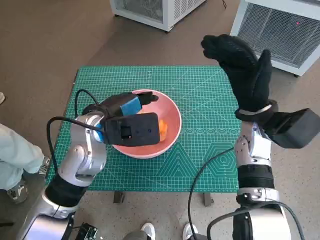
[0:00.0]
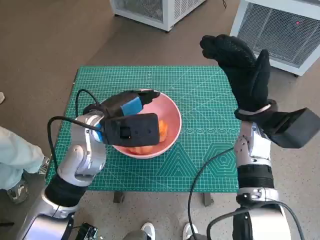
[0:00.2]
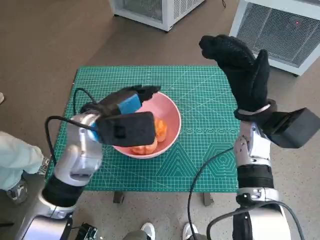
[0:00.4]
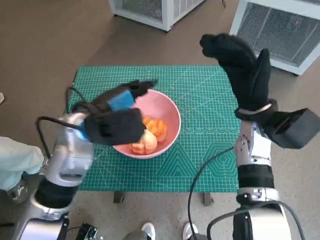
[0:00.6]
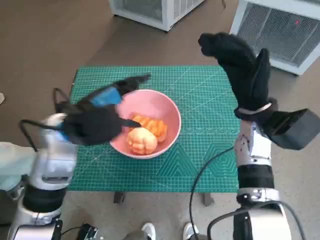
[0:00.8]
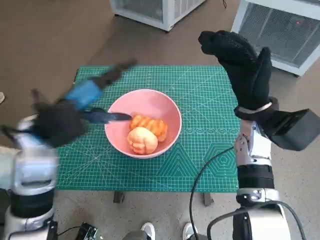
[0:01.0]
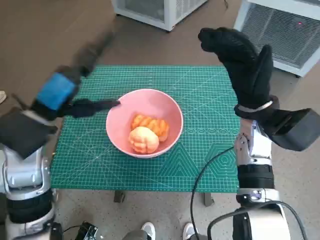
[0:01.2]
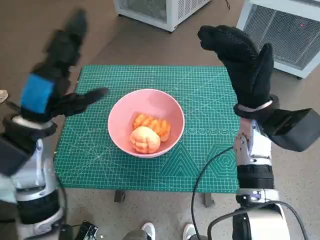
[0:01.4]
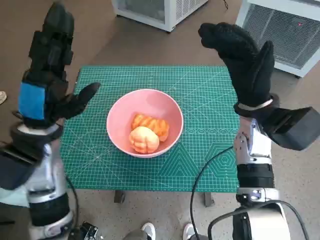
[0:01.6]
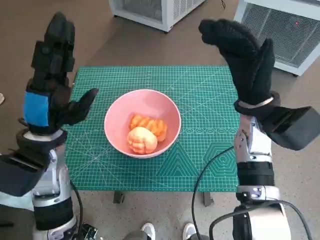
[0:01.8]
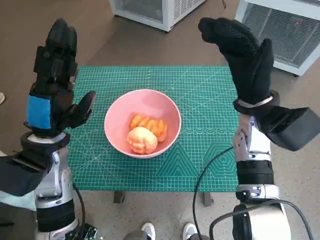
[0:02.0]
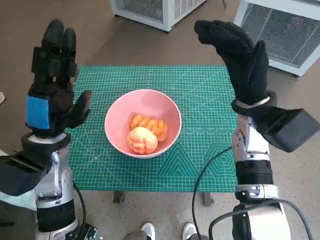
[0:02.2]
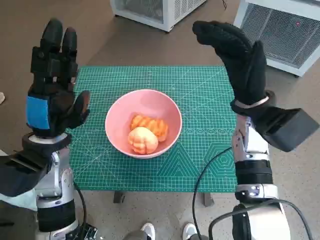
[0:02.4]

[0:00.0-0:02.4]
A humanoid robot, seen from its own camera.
Task of the whole recording: Push the bowl into the center of the table and put the bread into the bowl.
0:00.0 to 0:01.2: The left hand heads to the left, covering about 10 cm.

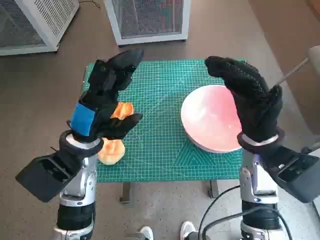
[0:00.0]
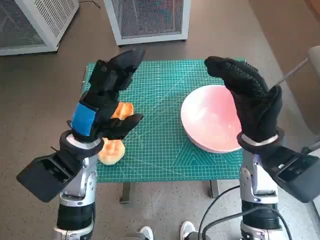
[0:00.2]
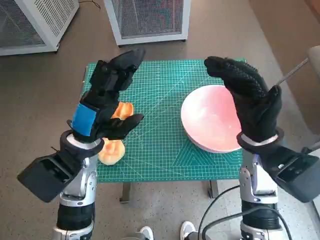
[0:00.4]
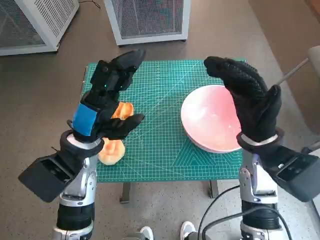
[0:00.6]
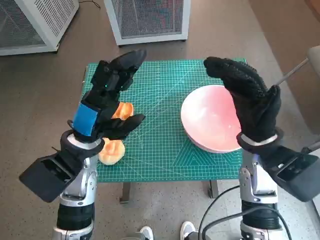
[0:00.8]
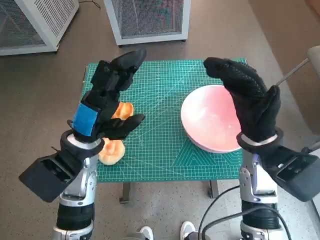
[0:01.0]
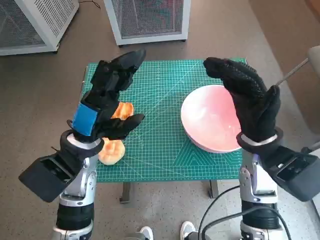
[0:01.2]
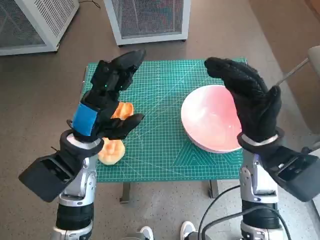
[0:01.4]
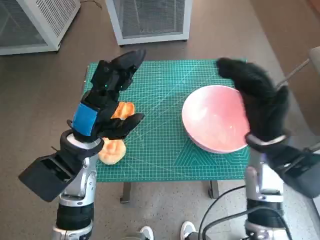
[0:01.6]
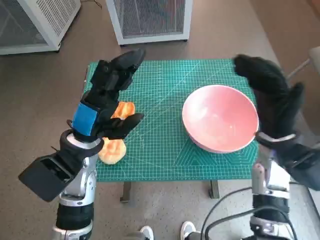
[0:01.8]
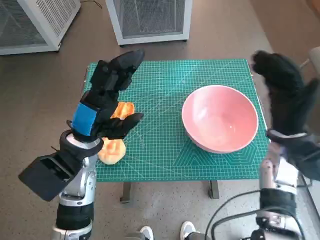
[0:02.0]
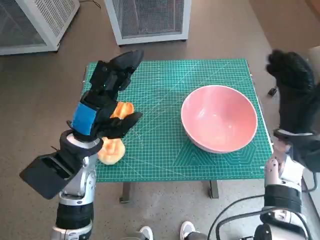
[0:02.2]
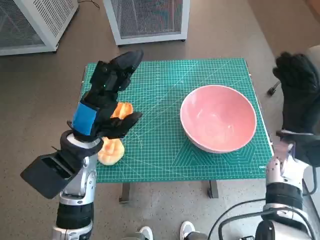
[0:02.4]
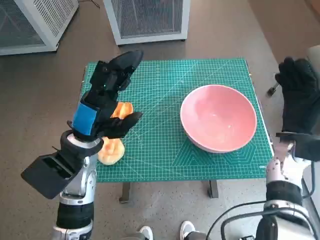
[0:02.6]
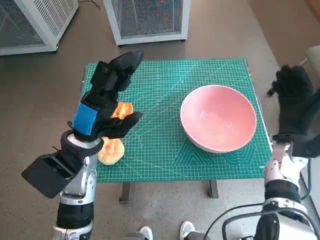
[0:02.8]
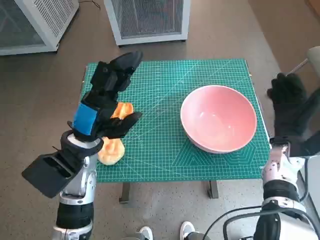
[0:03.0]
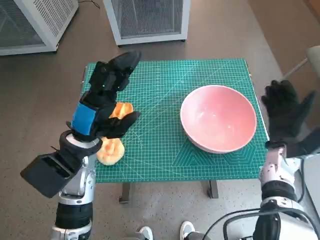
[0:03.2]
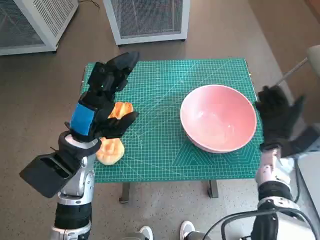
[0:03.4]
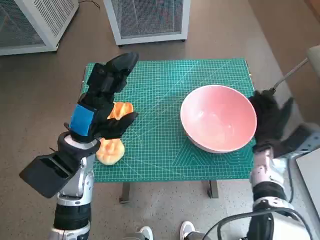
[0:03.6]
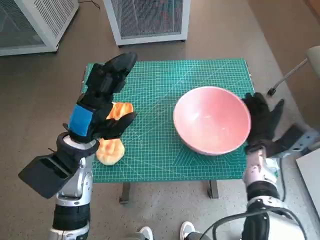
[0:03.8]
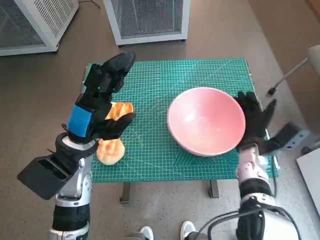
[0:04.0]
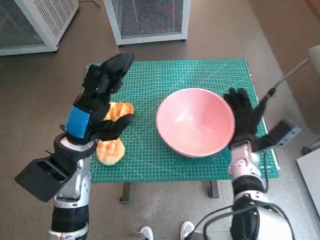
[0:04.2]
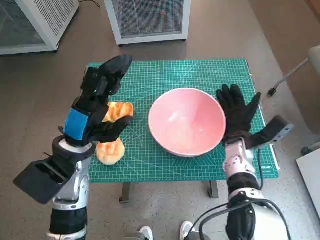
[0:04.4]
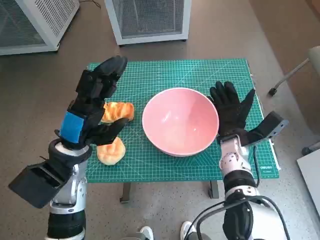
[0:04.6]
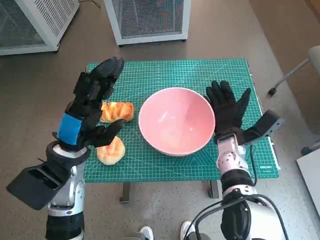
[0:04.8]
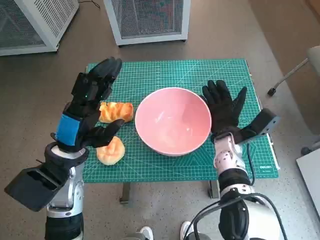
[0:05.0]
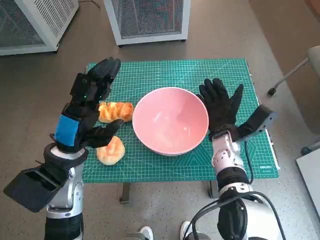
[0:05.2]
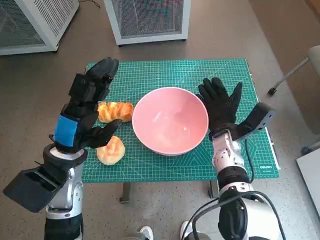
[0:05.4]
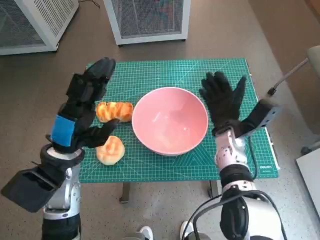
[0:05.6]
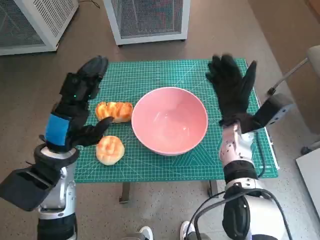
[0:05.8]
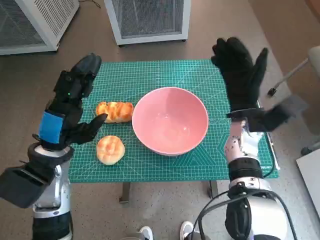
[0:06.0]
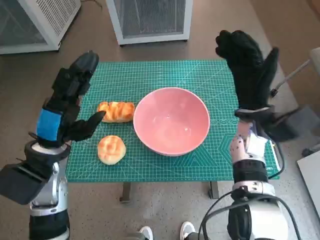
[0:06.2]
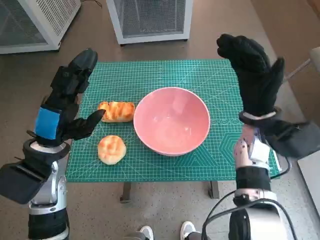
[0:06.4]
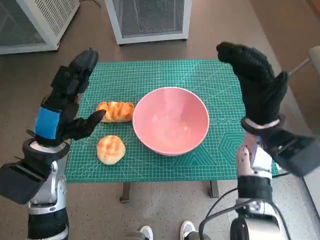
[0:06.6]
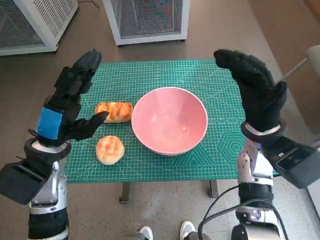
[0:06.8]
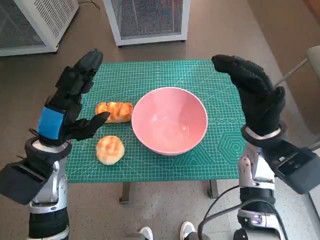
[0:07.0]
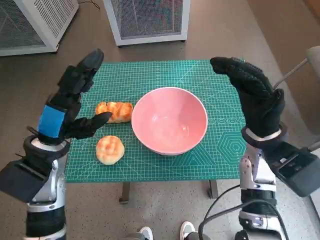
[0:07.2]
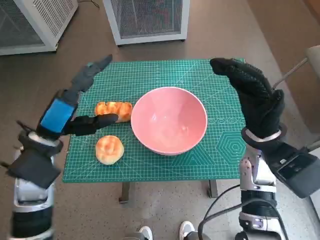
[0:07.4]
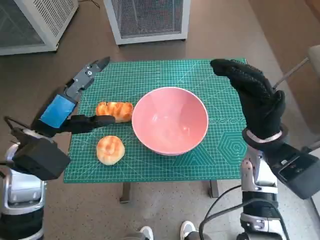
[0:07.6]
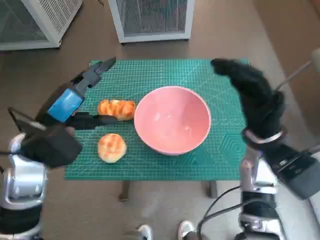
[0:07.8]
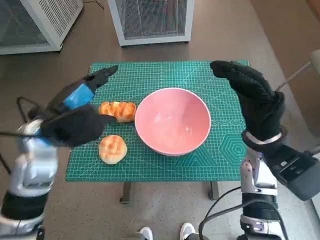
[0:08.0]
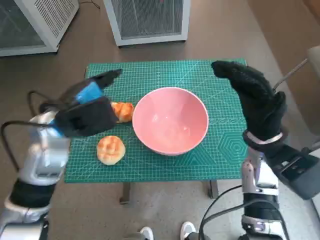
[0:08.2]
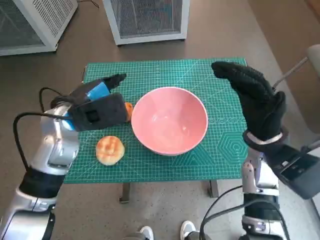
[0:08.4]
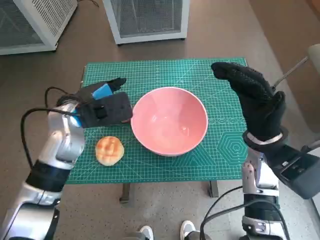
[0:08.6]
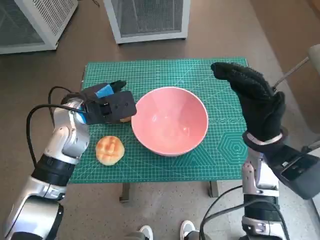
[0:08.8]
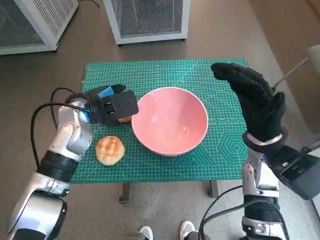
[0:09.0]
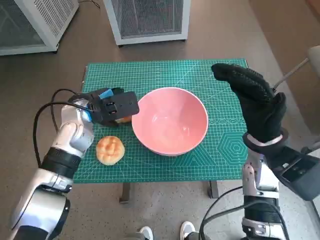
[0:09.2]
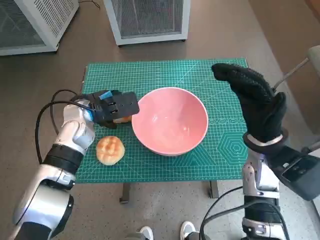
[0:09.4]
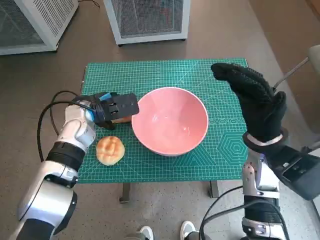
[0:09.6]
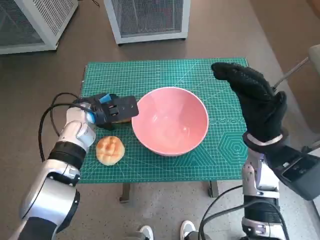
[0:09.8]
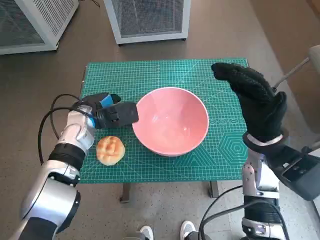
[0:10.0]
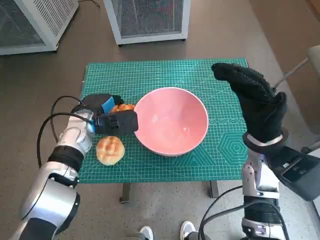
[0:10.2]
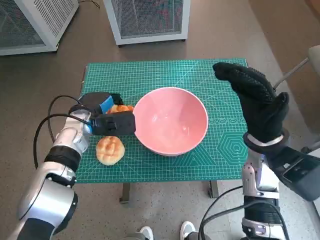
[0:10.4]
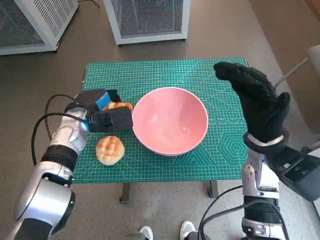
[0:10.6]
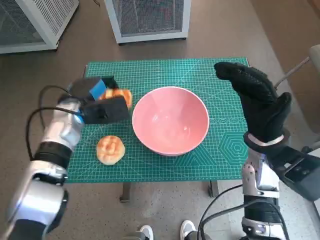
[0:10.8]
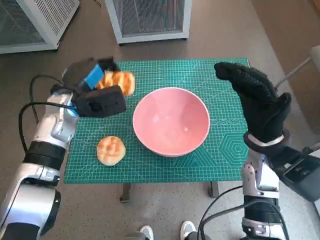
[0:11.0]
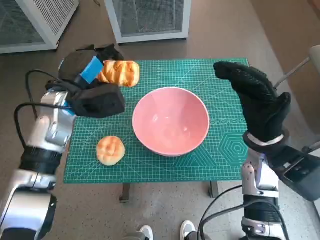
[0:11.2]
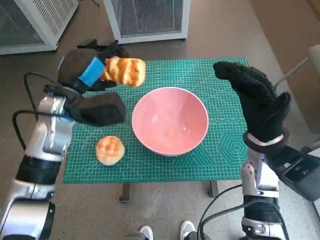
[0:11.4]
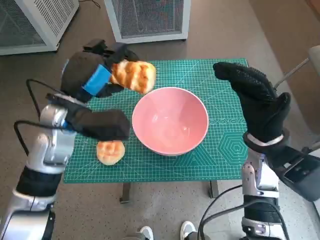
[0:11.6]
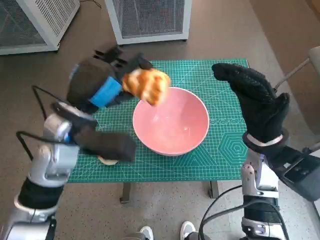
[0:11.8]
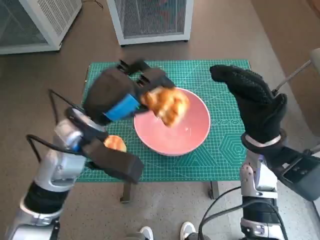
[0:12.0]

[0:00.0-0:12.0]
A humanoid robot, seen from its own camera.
Task of the whole recording: Push the bowl into the center of the table and put the bread into the bowl.
Step, 0:00.0 to 0:05.6: Move the pink bowl to the center of table with right hand.
Step, 0:05.8 to 0:10.2: Grasp the long bread with left hand.
0:01.6 to 0:03.0: The right hand moves to the right and downward, some 10 cm.
0:03.0 to 0:04.4: The right hand is displaced to the left by approximately 10 cm.
0:04.4 to 0:06.0: The right hand is displaced upward by about 5 cm.
0:06.0 to 0:07.6: The right hand travels backward by roughly 5 cm.
0:07.6 to 0:09.0: The left hand is displaced forward by about 10 cm.
0:09.0 to 0:10.4: The left hand travels downward by about 5 cm.
0:10.4 to 0:12.0: The left hand heads upward, backward and to the right, covering roughly 15 cm.

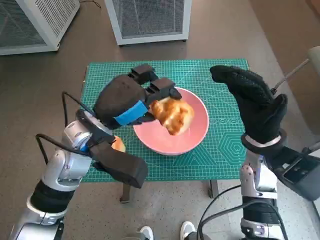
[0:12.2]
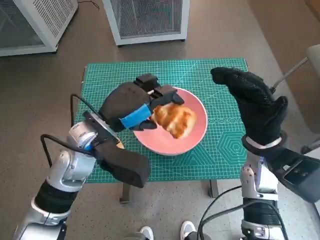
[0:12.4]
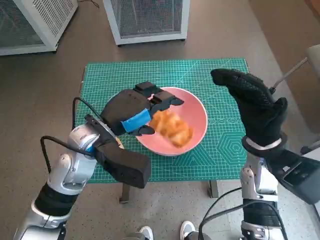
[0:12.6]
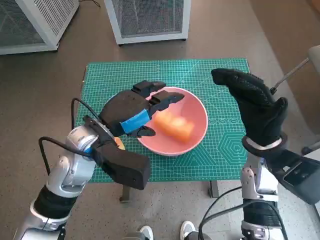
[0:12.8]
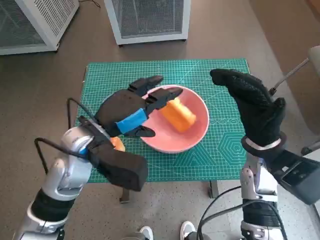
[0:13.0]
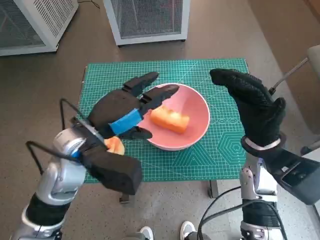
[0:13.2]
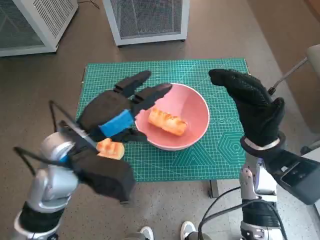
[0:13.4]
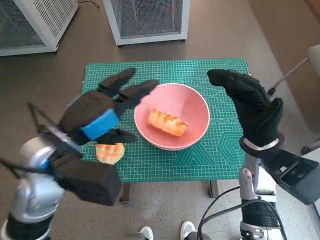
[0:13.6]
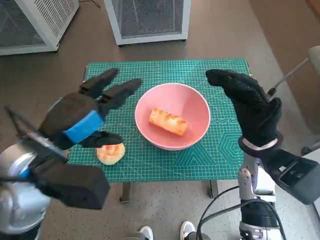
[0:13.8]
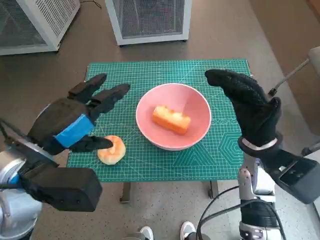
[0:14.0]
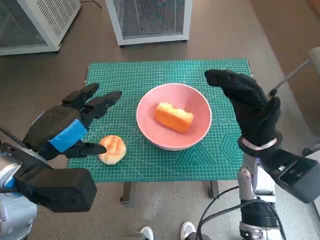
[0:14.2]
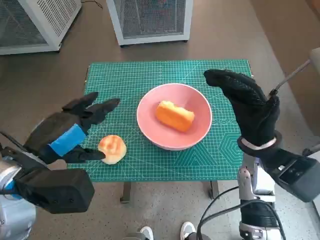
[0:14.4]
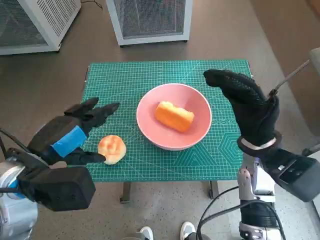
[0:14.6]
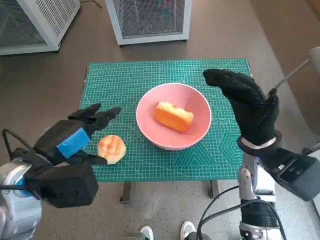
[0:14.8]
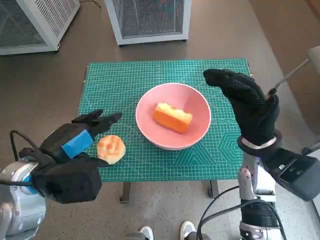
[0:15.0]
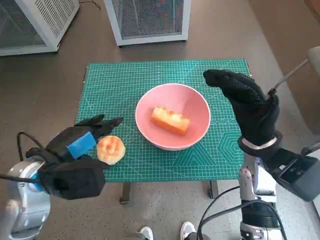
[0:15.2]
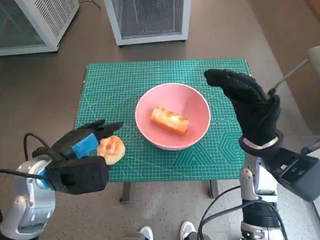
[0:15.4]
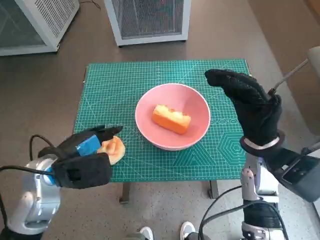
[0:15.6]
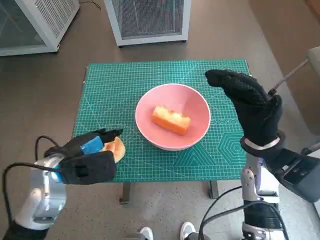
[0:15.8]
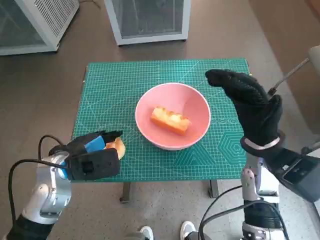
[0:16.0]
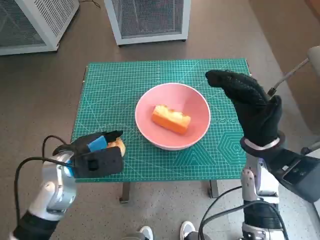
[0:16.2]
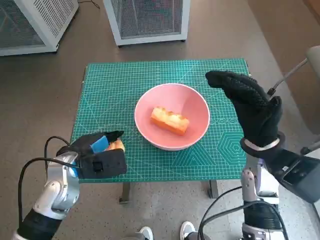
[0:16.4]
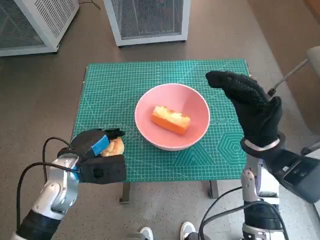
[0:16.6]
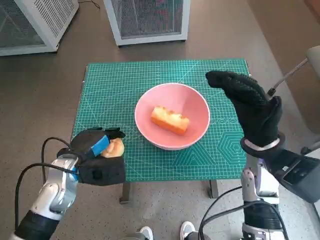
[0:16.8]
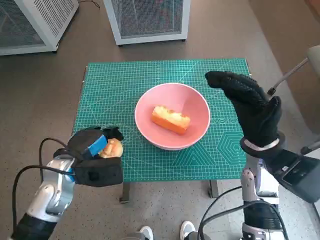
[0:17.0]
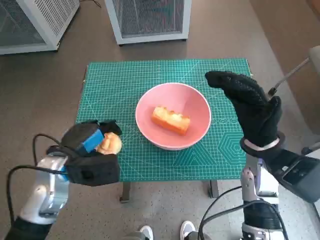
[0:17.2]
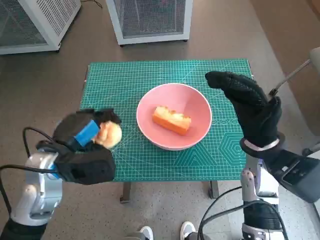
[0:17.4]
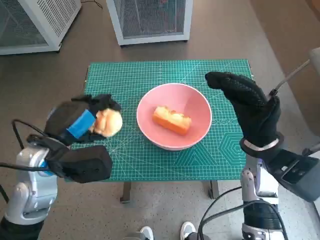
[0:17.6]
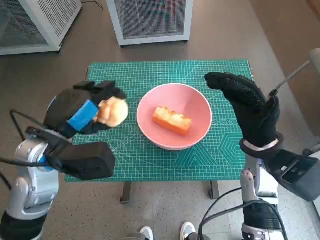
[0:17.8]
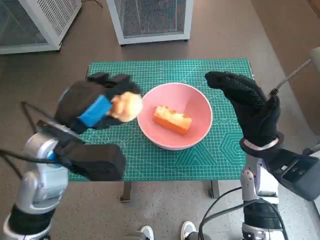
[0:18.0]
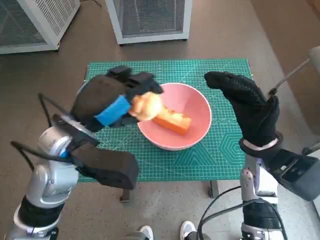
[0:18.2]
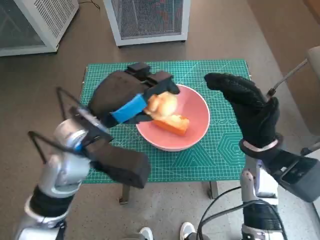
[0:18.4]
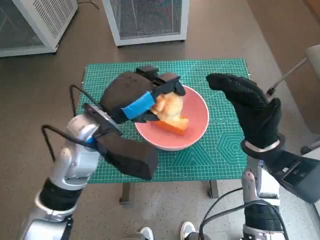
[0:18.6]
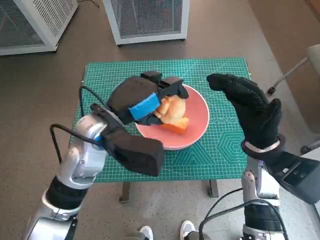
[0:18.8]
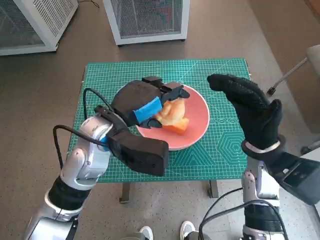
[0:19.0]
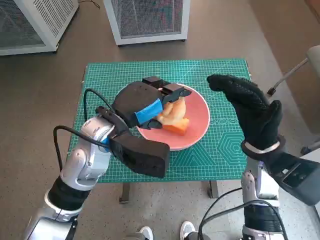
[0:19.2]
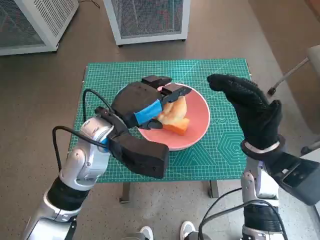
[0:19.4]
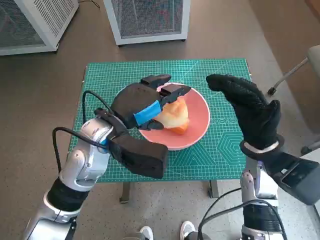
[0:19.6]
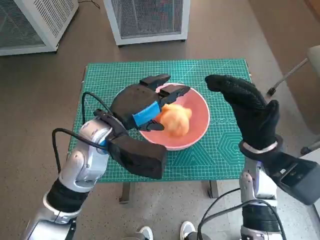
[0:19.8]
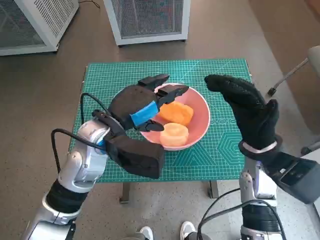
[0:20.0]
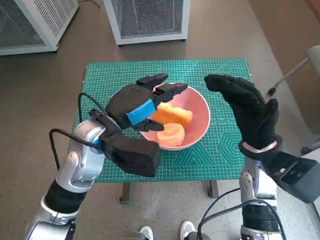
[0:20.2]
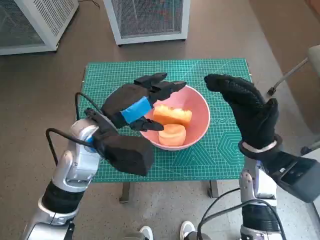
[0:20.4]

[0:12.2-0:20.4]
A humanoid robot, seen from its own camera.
Task of the whole recording: Push the bowl into the center of the table and put the bread into the bowl.
Step, 0:12.8 to 0:16.4: Grasp the round bread with left hand.
Step, 0:16.6 to 0:19.6: Place the round bread in pink bowl with left hand.
0:12.2 to 0:13.8: The left hand is displaced backward by roughly 5 cm.
0:13.8 to 0:15.4: The left hand moves downward, approximately 5 cm.
0:15.4 to 0:17.2: The left hand heads downward, covering roughly 5 cm.
0:17.2 to 0:18.8: The left hand goes approximately 15 cm to the right and upward.
0:18.8 to 0:20.4: There are only small adjustments of the hands.
